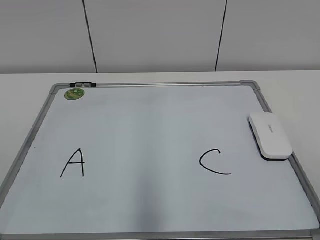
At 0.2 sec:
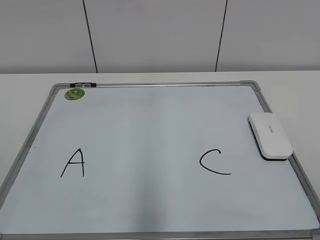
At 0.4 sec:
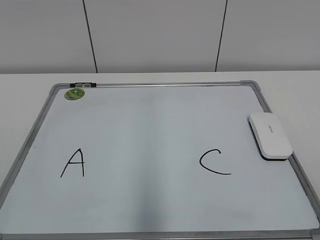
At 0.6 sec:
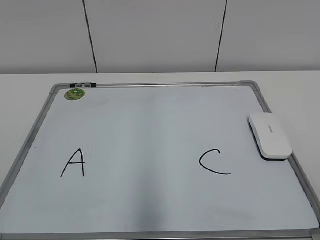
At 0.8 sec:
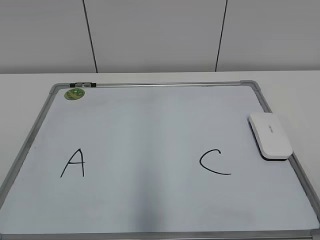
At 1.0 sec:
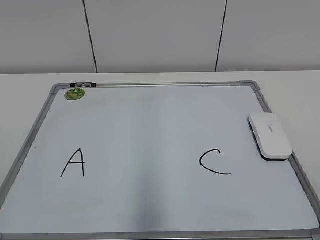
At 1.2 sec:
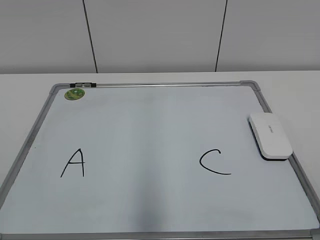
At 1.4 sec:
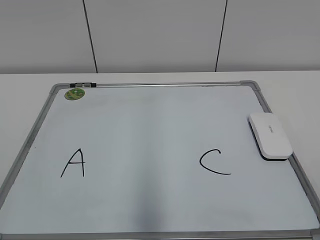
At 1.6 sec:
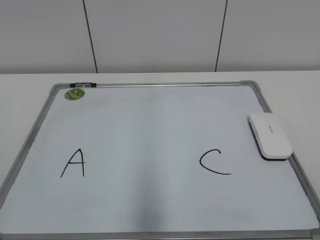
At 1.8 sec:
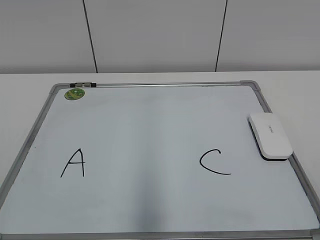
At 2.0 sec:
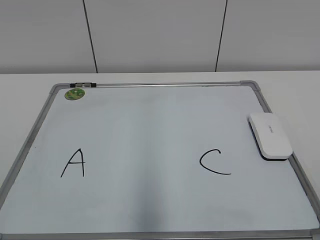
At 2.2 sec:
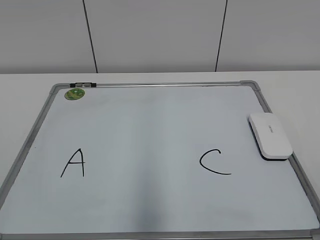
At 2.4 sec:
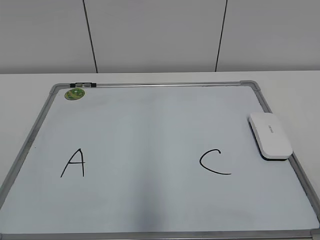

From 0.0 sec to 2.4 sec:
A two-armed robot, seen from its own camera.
Task of the whole recording: pick up the eraser on the blackboard and erase the letter "B".
From 1.2 sec to 2.4 sec: Neither gripper changes place.
